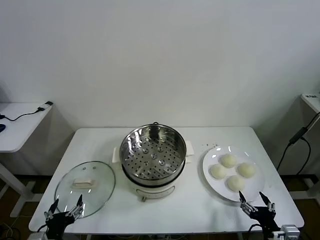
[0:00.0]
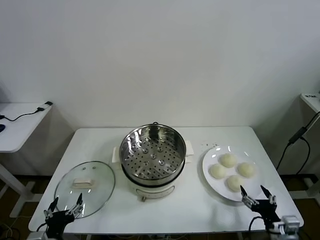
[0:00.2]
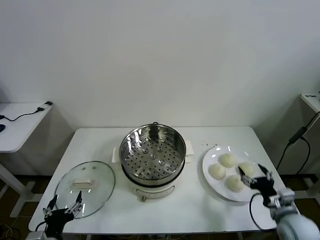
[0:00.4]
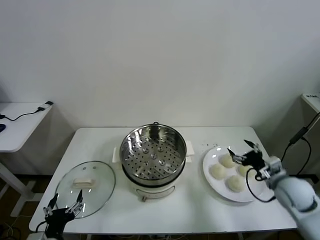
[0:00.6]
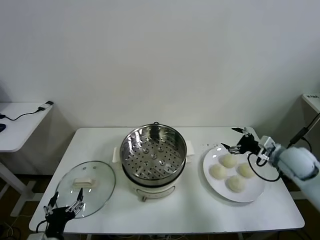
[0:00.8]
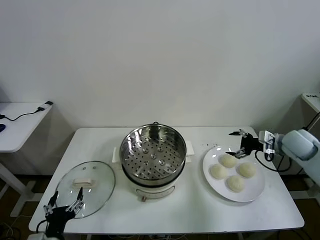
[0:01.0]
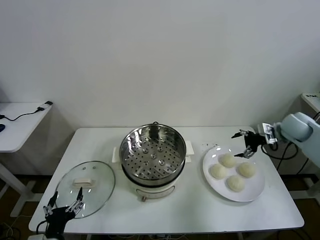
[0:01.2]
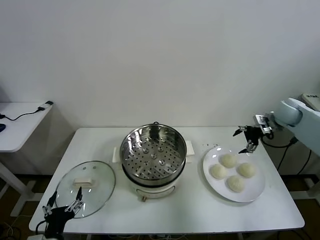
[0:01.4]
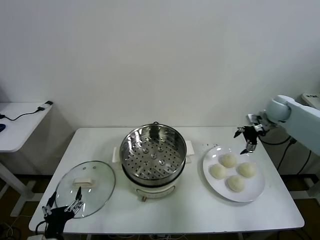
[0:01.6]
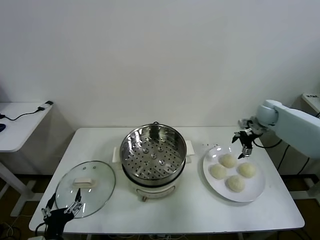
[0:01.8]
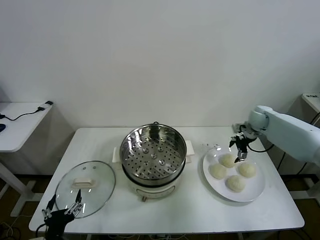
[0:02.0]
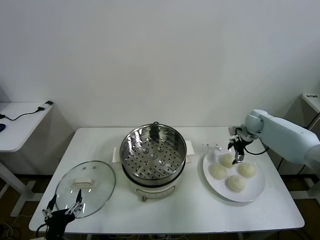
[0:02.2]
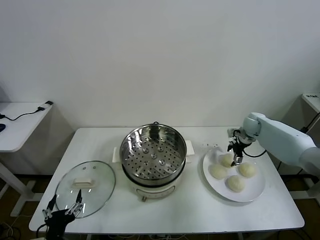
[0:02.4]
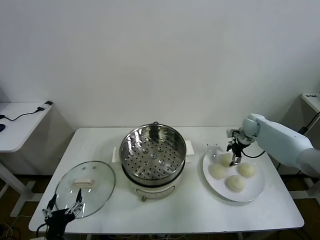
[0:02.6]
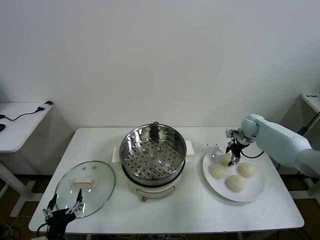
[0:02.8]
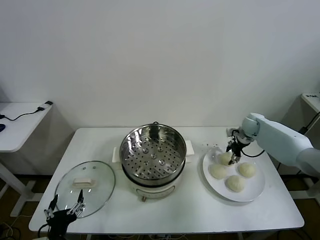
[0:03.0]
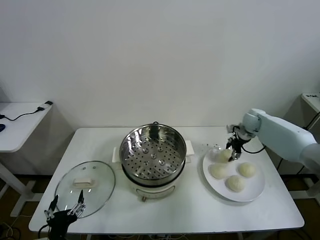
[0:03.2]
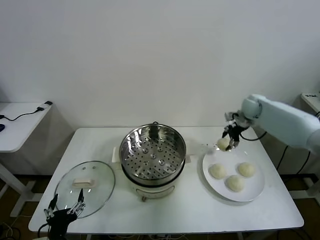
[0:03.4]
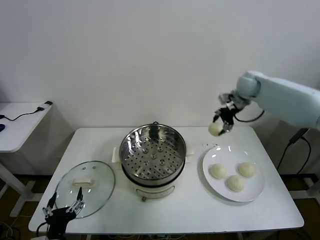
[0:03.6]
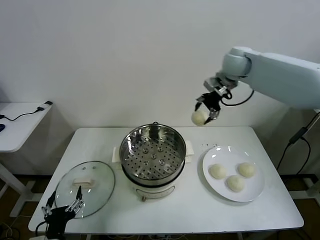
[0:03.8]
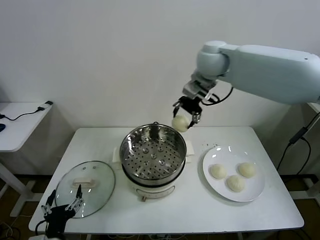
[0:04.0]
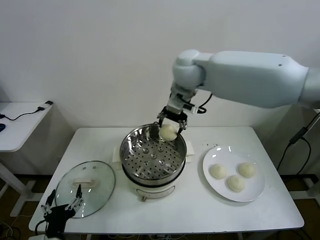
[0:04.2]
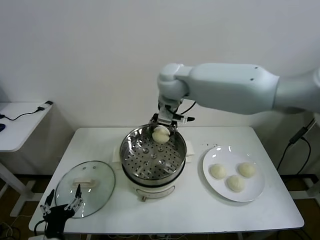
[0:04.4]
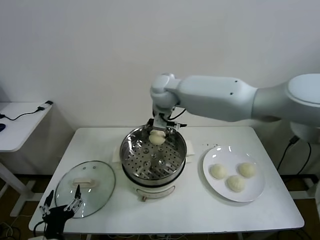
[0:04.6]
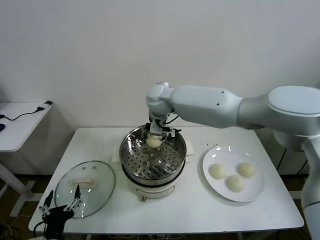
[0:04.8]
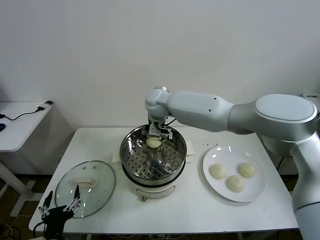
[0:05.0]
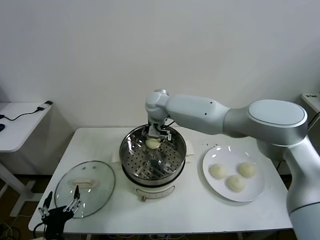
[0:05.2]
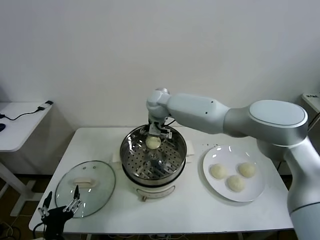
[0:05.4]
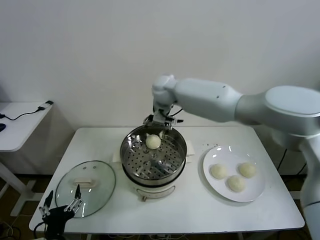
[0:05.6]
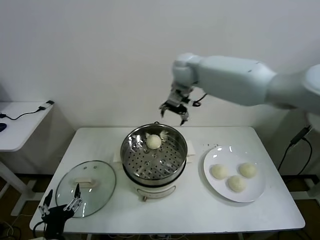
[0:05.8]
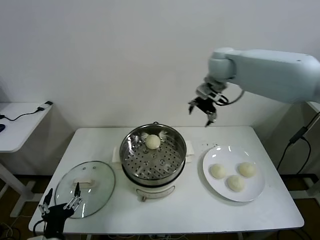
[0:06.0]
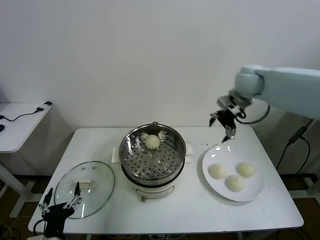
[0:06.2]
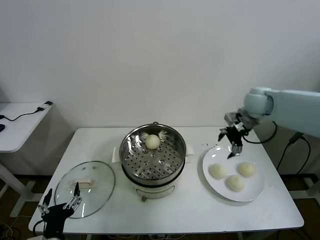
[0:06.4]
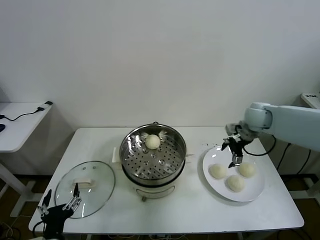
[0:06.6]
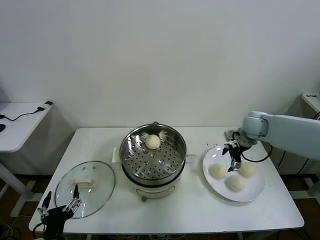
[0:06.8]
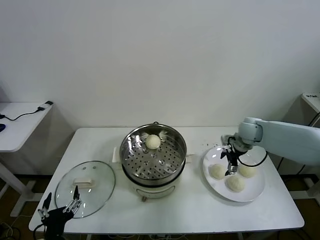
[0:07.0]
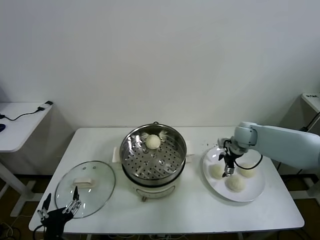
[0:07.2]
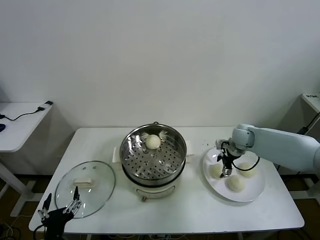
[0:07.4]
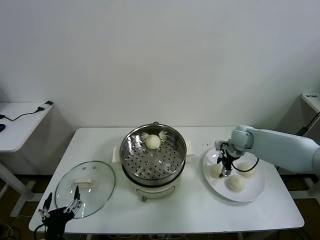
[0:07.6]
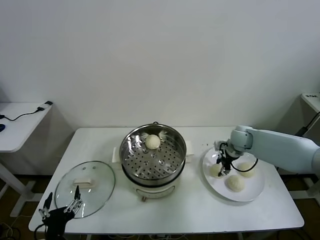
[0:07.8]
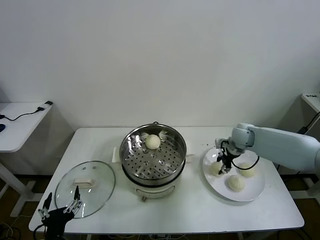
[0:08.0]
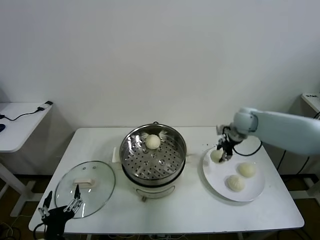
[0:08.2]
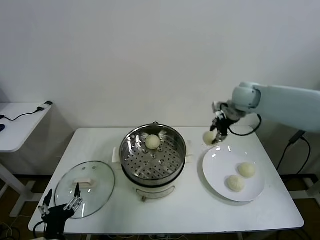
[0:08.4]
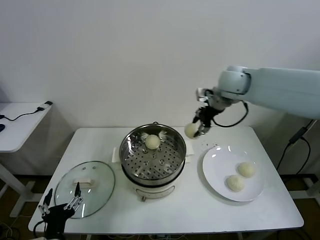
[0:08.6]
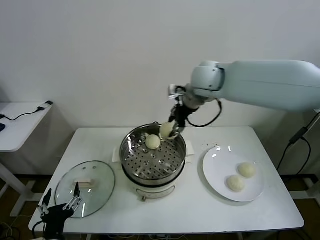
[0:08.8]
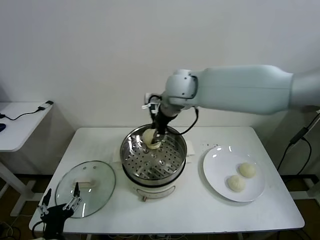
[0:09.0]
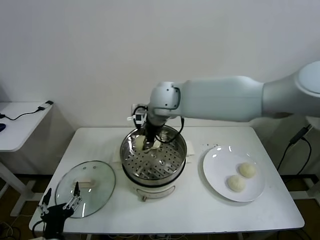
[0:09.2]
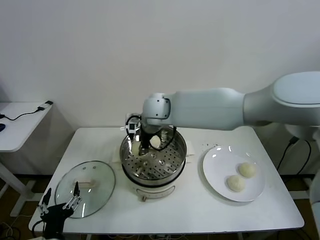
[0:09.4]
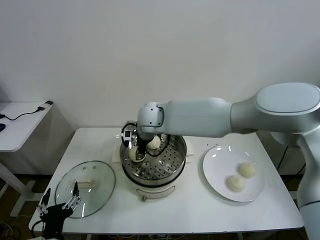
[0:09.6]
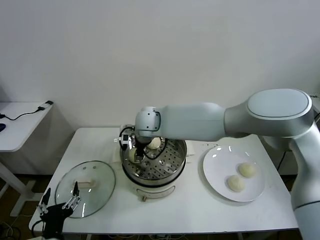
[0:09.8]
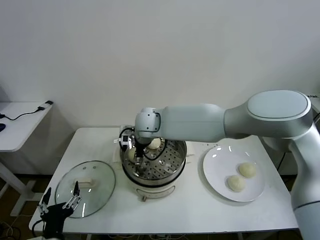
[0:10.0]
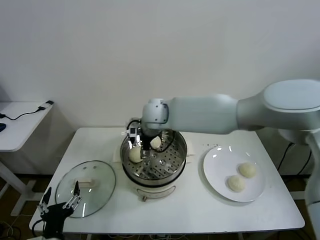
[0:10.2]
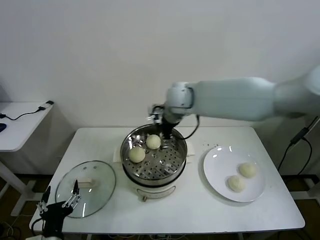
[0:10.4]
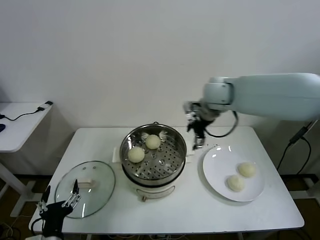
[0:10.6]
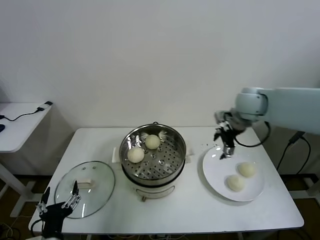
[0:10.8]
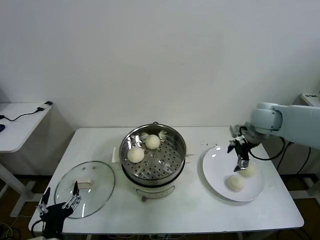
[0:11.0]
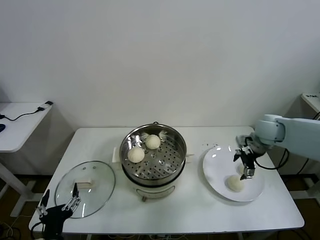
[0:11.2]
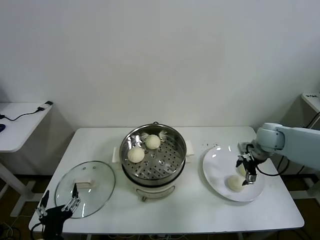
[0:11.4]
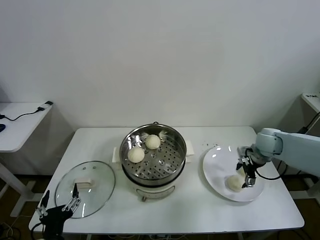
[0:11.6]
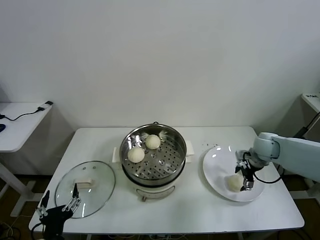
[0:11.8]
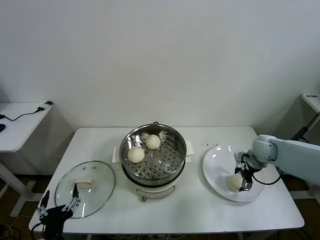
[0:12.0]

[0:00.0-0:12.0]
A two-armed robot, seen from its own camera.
Task of the whole recording: take steamed baozi put them in steamer then cover it.
Step, 0.0 to 2.8 s: Grasp the baozi in the plate with right gripper.
Step, 3.2 to 5.2 s: Place the baozi on the steamer with right gripper.
Step, 5.6 to 7.8 s: Grasp the baozi in the plate with right gripper.
Step, 8.0 to 10.0 s: Place the baozi on the steamer with right gripper.
1.6 to 3.0 s: The right gripper goes approximately 10 cm downward, and closes its fingers.
3.0 to 4.4 s: The right gripper moves to the left and upward, approximately 40 cm.
4.4 to 6.0 s: The right gripper heads to the right, covering about 20 cm, and opens up.
6.0 to 7.6 s: The right gripper travels downward by some 25 cm, and closes up.
7.6 to 9.0 s: The right gripper heads to the left and upward, covering some 35 cm.
9.0 to 10.4 s: The right gripper is displaced to the right by roughly 5 cm, and opens its fingers.
10.4 to 12.0 s: The right gripper is displaced to the right and downward by roughly 35 cm.

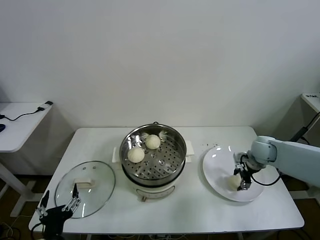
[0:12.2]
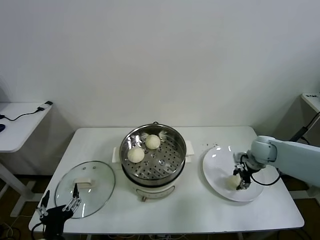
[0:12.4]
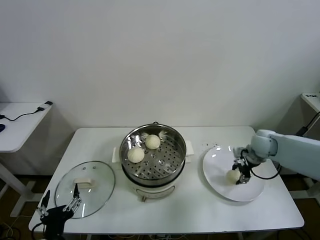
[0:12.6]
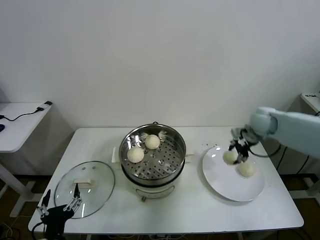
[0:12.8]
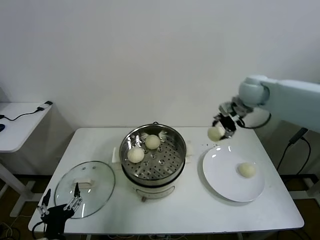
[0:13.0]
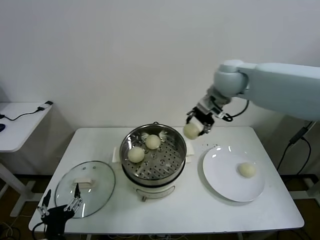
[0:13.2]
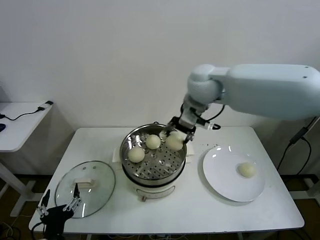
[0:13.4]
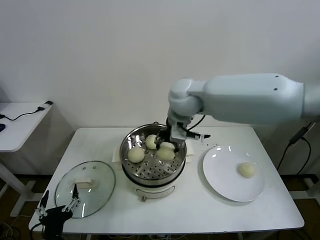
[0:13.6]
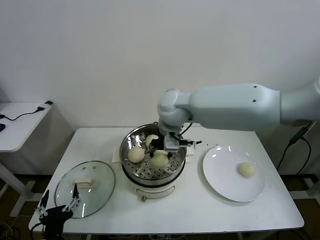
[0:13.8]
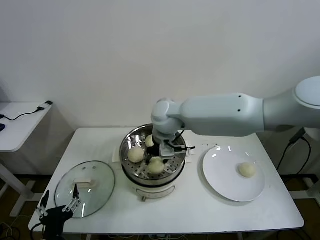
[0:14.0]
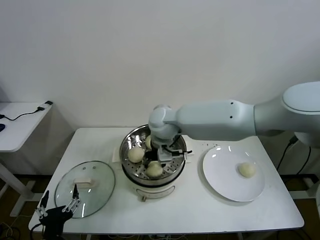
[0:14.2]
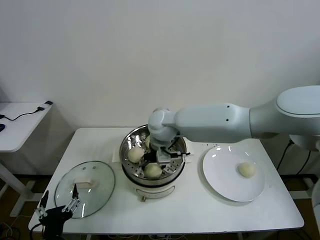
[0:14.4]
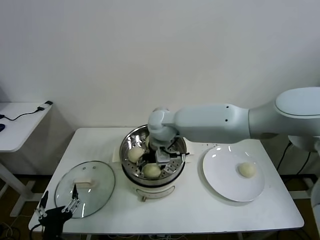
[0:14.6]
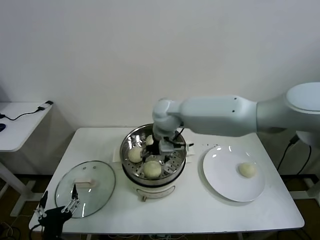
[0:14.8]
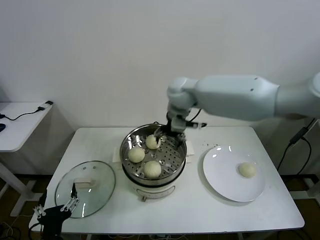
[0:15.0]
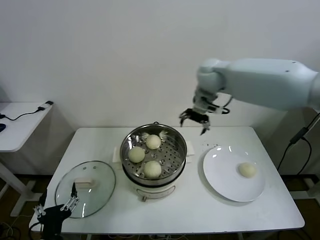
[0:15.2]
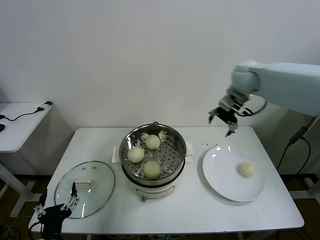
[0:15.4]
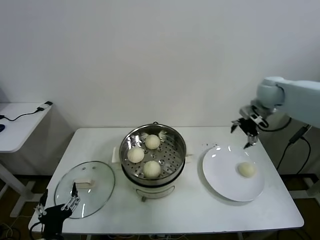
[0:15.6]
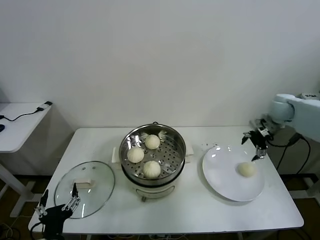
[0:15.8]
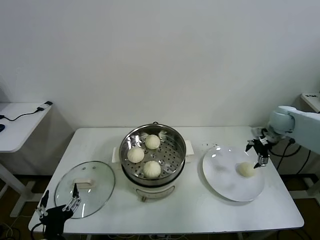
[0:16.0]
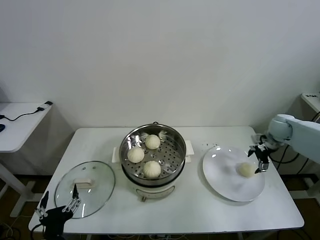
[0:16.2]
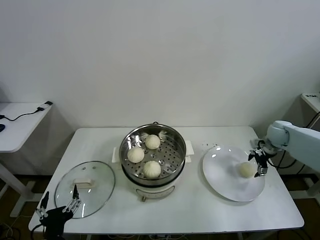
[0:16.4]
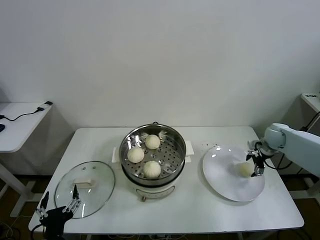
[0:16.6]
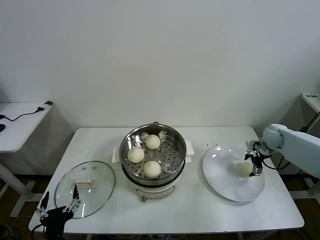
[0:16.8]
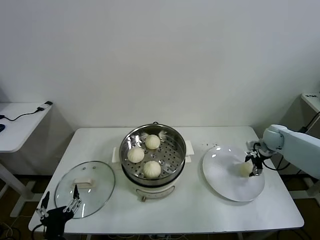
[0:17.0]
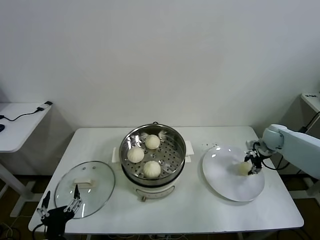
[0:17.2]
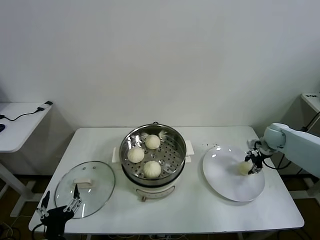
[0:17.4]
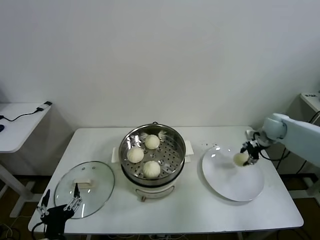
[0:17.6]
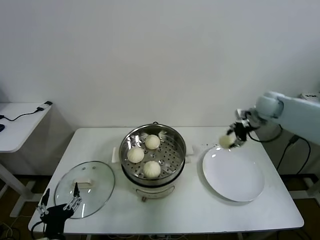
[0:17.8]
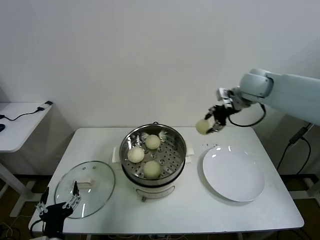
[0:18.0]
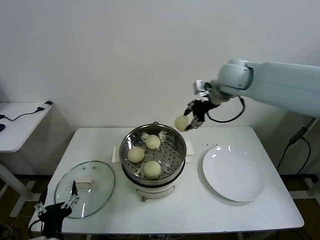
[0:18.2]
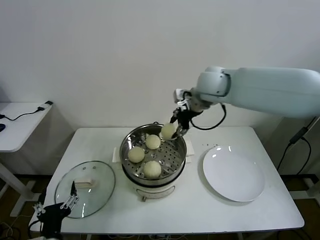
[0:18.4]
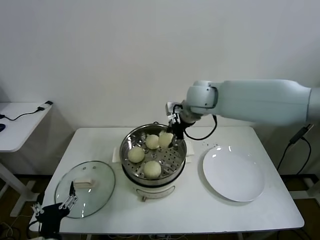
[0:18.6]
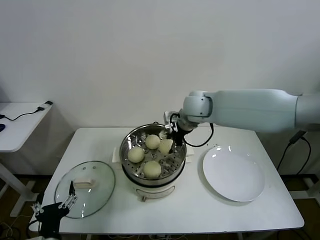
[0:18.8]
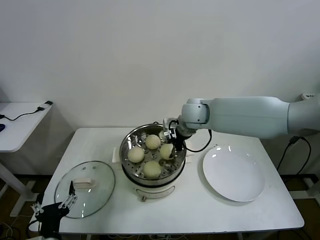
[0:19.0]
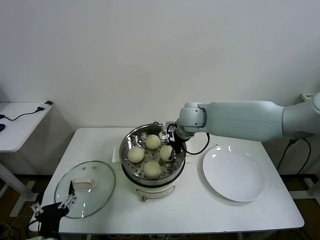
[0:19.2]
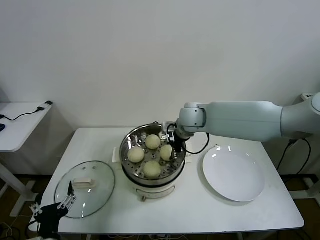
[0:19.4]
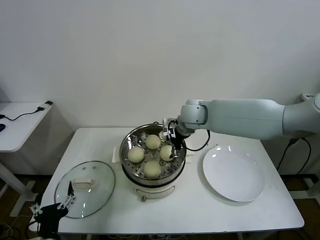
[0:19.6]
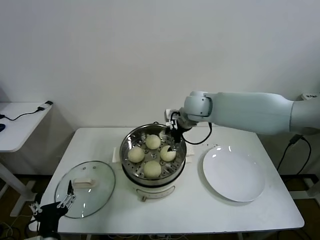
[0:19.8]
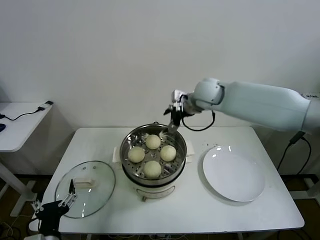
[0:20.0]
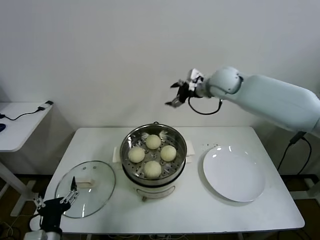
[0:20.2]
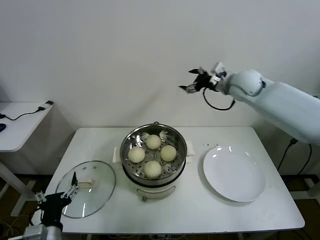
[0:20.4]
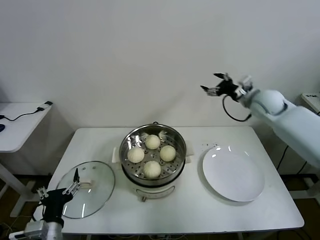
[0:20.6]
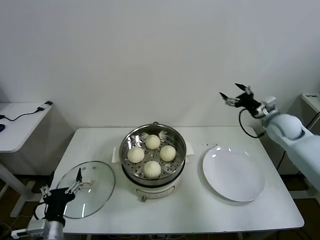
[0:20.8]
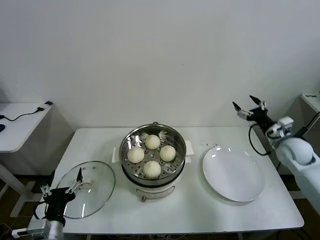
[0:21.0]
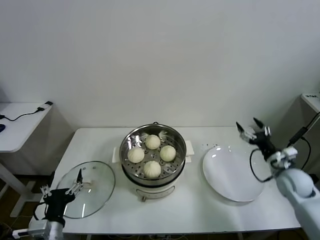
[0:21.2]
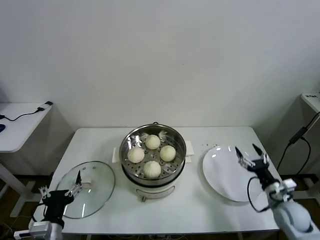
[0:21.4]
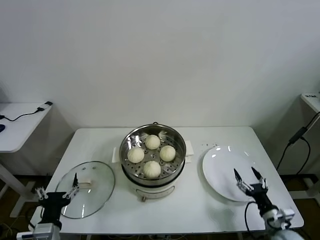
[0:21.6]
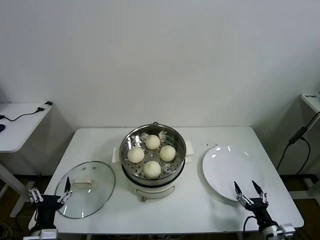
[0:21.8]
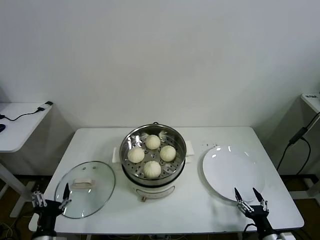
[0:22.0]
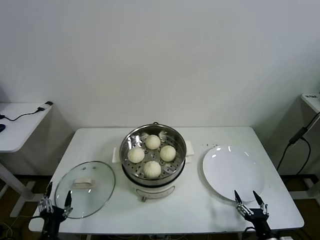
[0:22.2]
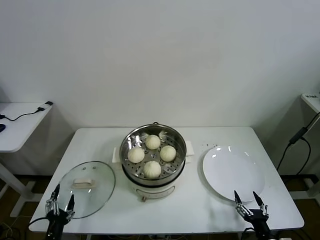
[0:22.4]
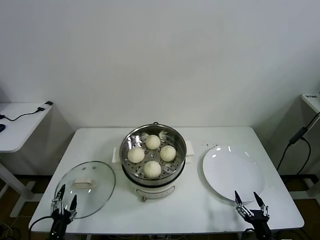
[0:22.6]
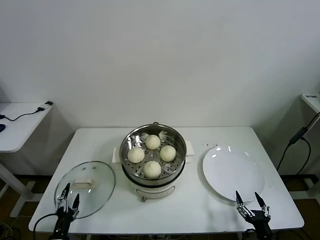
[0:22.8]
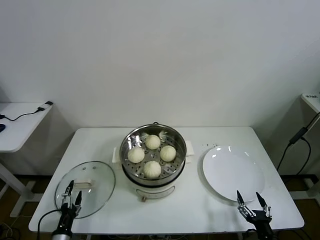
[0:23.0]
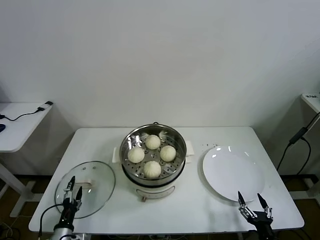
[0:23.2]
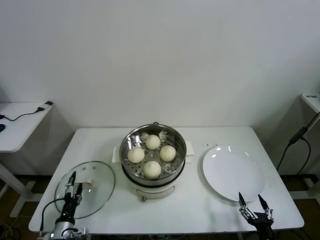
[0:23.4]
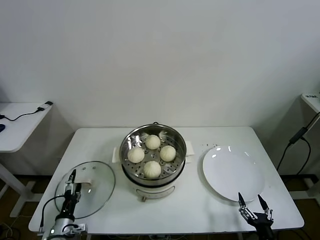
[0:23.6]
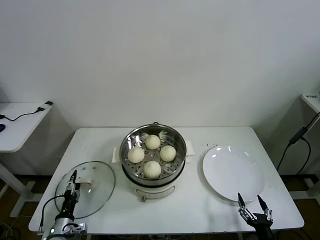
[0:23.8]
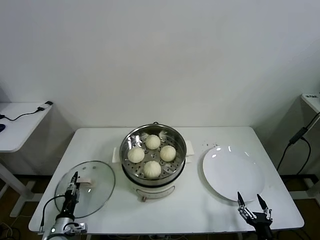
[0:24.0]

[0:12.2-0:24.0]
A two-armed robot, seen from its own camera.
Task of the whole recording: take steamed baozi put them in steamer then cover it.
Step, 12.4 to 14.6 s: Place the baozi on the steamer with right gripper.
Step, 15.0 to 17.2 s: Grasp the baozi in the plate with right gripper.
Step, 17.4 to 19.4 s: Place the baozi on the steamer with right gripper.
12.2 to 13.6 s: The right gripper travels to the left and upward by some 40 cm.
13.6 to 15.2 s: The right gripper goes roughly 15 cm to the right and forward, and opens its fingers.
15.2 to 16.6 s: The right gripper heads to the right and downward, covering approximately 35 cm.
16.6 to 18.2 s: The right gripper shifts about 35 cm upward and to the left, and closes up.
18.2 to 19.6 s: The right gripper is displaced downward and to the left by some 15 cm, and opens up.
19.6 to 21.0 s: The right gripper goes approximately 35 cm to the right.
21.0 to 22.6 s: The right gripper travels backward and downward by about 40 cm. Meanwhile the left gripper shifts approximately 15 cm downward and to the left.
22.6 to 24.0 s: The left gripper goes some 10 cm forward and downward, and closes its fingers.
